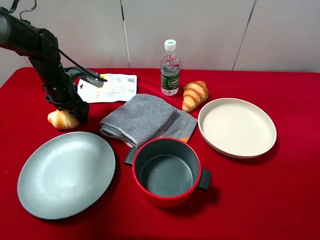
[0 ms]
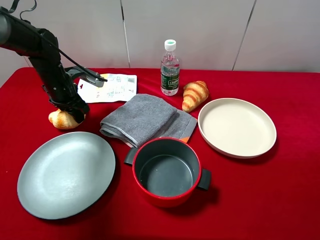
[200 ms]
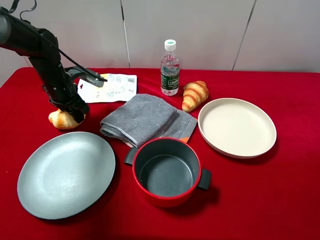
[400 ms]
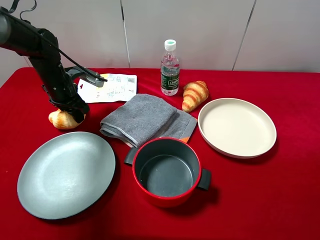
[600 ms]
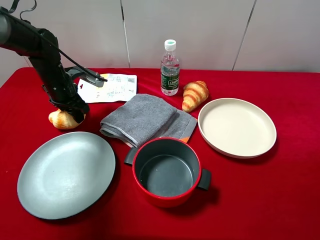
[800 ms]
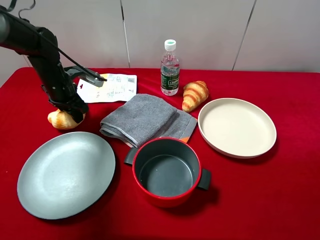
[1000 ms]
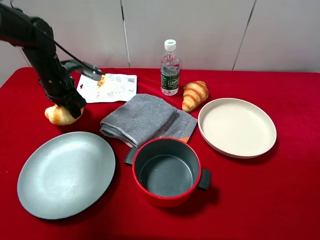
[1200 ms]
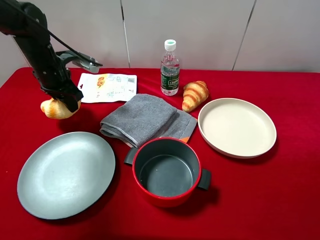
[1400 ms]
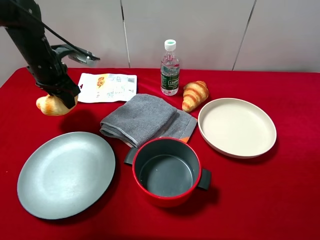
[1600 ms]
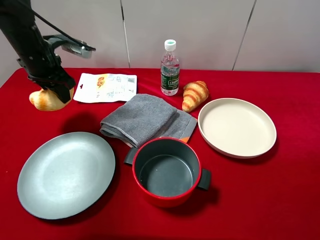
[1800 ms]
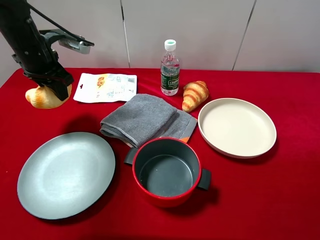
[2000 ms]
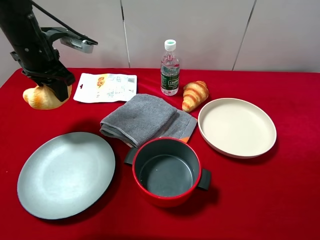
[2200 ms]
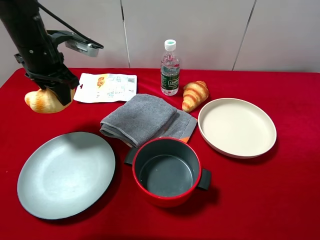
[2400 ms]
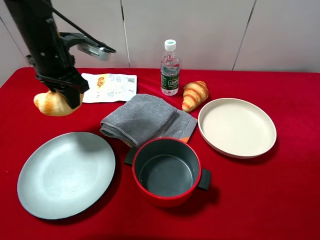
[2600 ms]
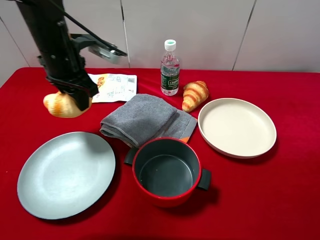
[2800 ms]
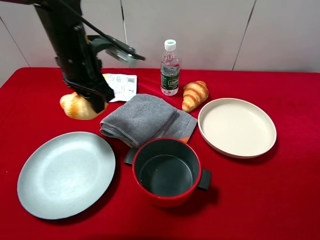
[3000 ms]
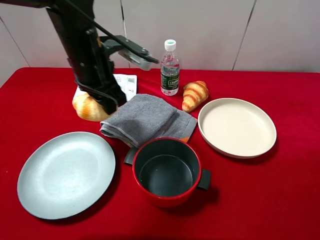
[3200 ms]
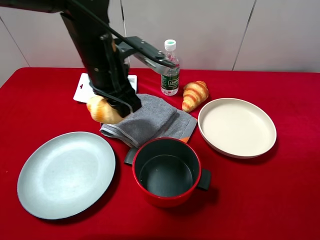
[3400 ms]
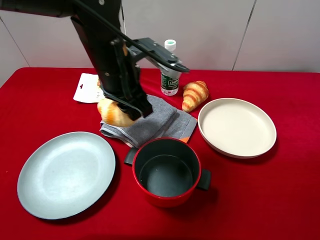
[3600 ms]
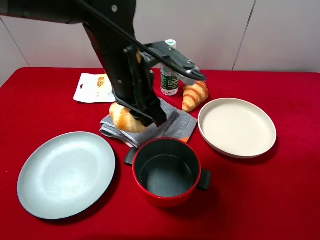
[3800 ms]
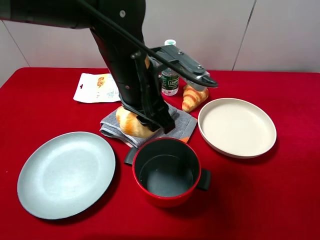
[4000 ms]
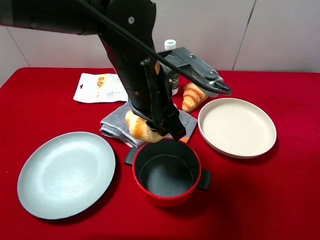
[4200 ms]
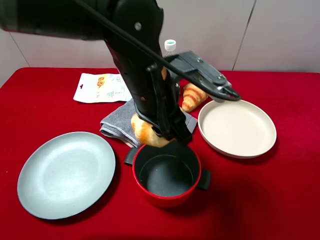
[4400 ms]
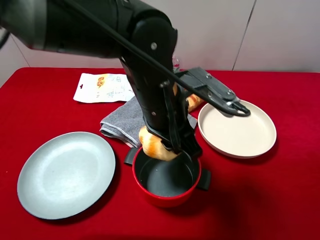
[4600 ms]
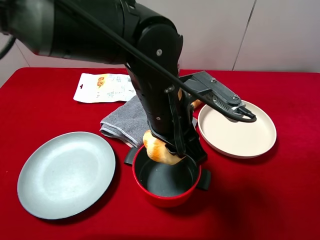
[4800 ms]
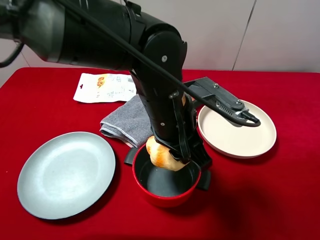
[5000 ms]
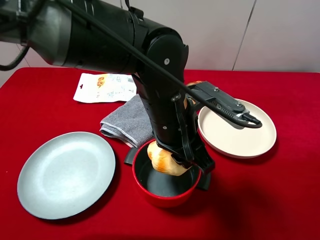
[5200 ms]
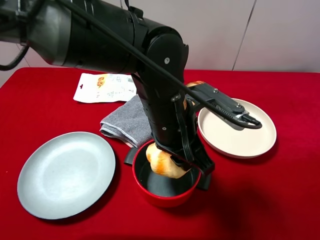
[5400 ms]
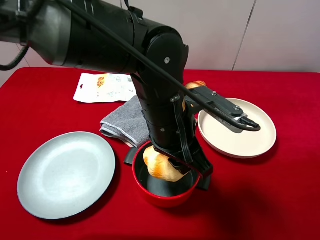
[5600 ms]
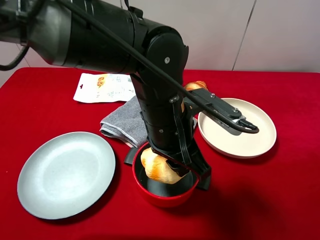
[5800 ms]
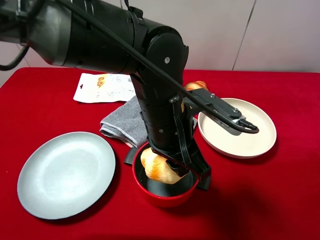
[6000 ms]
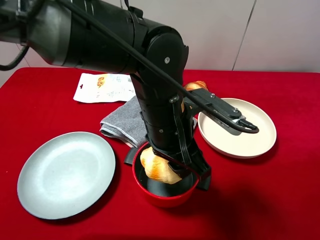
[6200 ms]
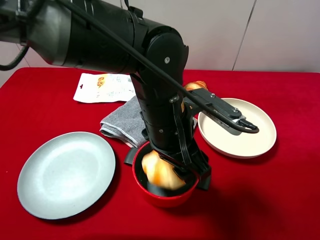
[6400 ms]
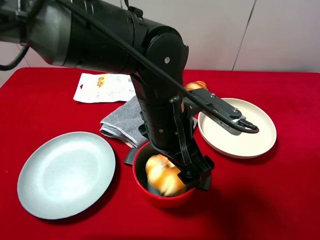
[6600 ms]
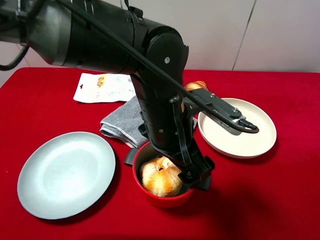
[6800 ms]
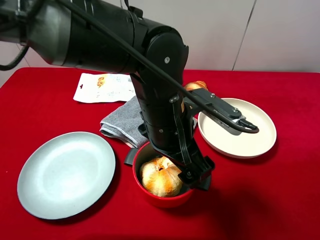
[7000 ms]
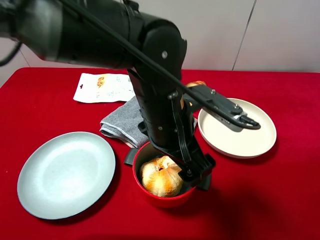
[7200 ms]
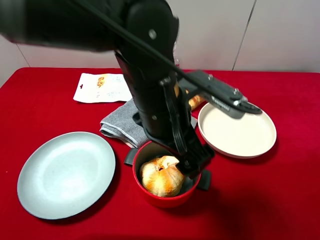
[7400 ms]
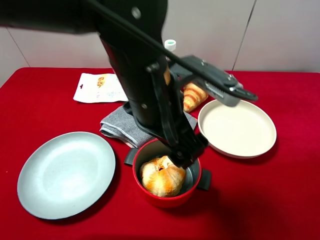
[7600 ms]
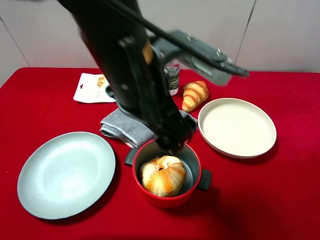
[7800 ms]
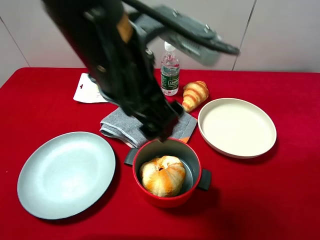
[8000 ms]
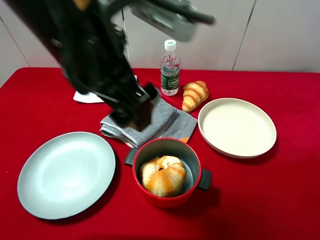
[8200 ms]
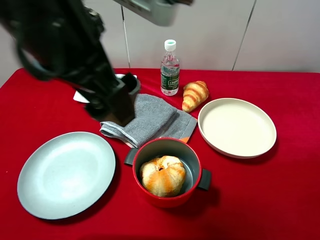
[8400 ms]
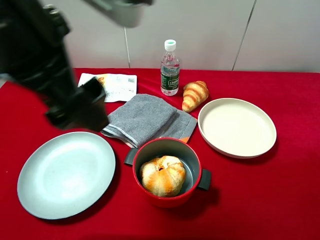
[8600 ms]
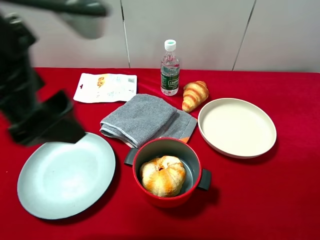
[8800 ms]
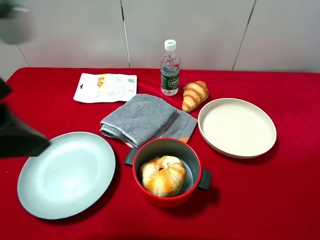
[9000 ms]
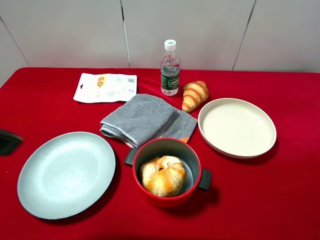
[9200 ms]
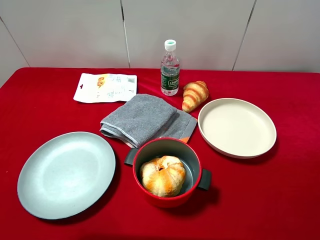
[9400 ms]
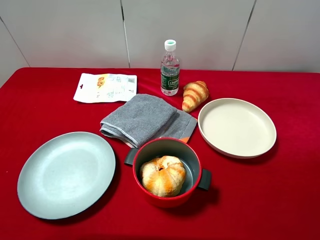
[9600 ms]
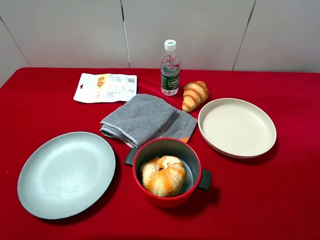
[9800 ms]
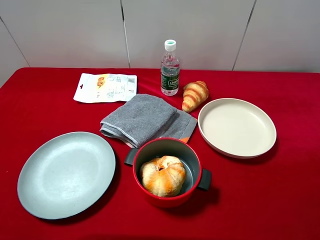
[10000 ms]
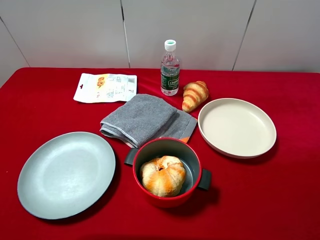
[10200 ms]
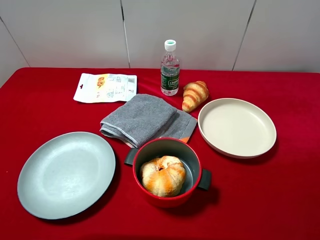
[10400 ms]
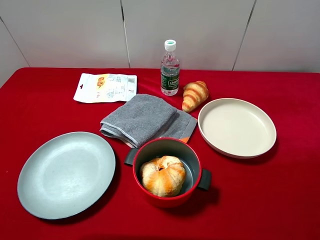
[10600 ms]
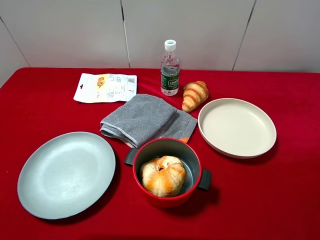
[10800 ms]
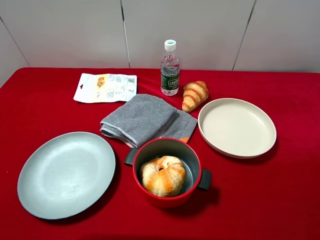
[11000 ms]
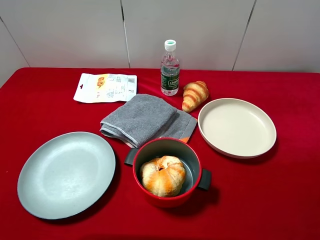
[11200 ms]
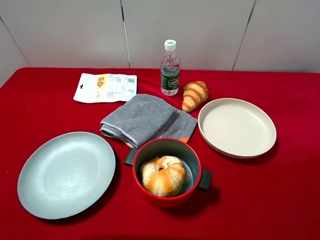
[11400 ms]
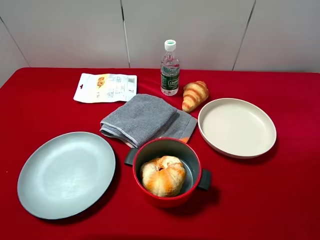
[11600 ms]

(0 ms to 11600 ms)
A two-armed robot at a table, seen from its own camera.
Task of the whole recording: pick up an item with a gripper and place it in a random container on the desktop.
0 ms - 1400 ms: The left gripper shifts roughly 5 cm upward, and closes up.
1400 ms - 2800 ms: The left gripper moves to the right, upward and backward, some 10 cm.
2800 ms - 4400 ms: The left gripper shifts about 20 cm to the right and backward.
4400 ms - 5800 ms: The grippers make only small movements.
5800 ms - 7200 ms: The left gripper opens its fingers.
7200 ms - 8800 ms: The left gripper travels to the left and upward by some 20 cm.
8800 ms - 10200 ms: The left gripper is displaced to the left and backward by about 20 cm.
